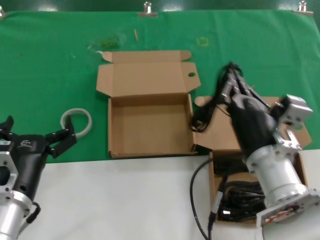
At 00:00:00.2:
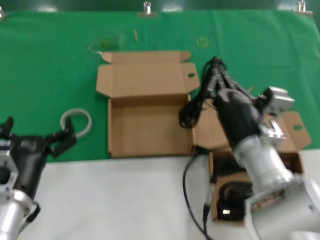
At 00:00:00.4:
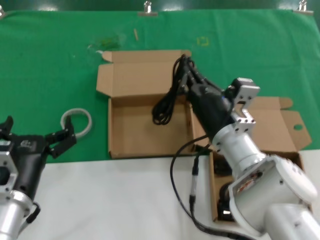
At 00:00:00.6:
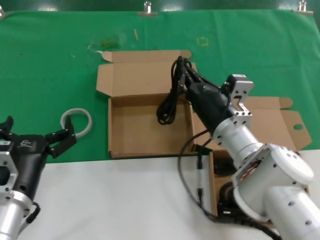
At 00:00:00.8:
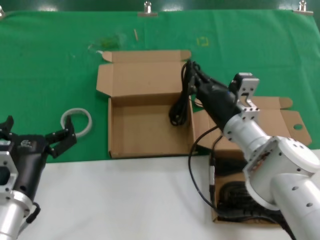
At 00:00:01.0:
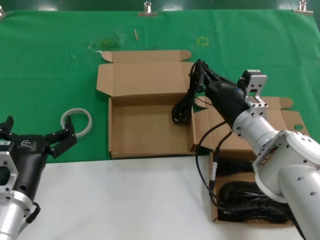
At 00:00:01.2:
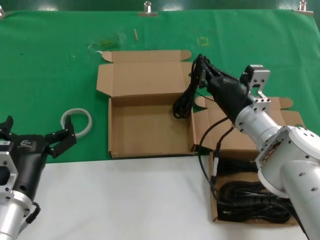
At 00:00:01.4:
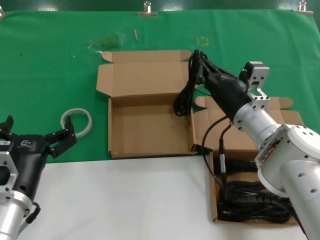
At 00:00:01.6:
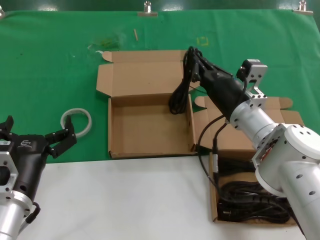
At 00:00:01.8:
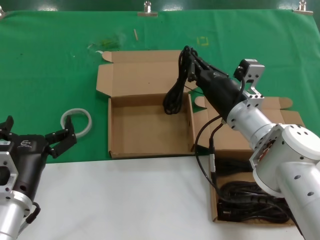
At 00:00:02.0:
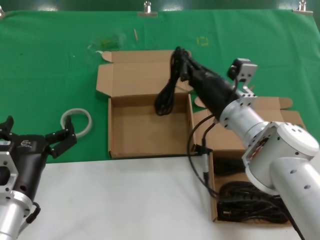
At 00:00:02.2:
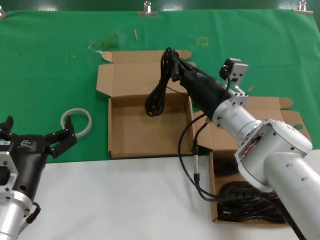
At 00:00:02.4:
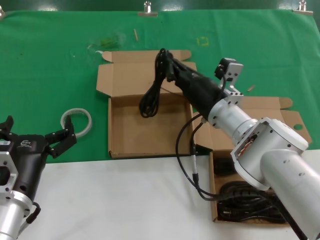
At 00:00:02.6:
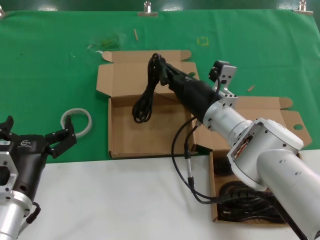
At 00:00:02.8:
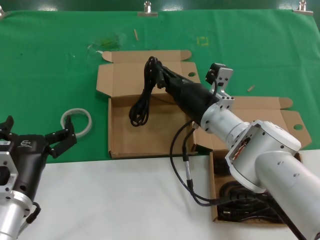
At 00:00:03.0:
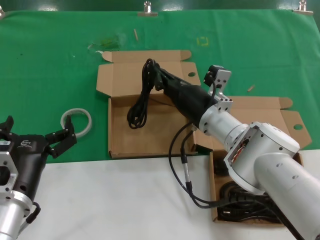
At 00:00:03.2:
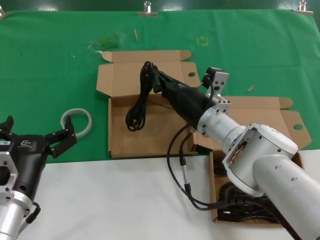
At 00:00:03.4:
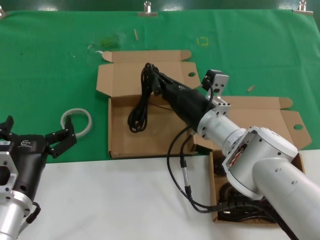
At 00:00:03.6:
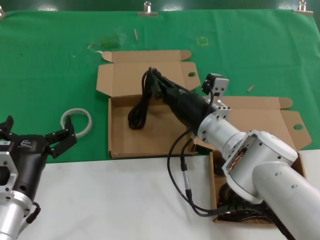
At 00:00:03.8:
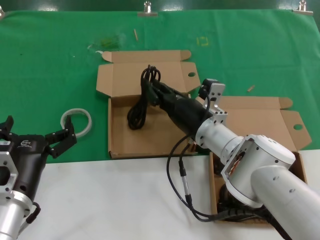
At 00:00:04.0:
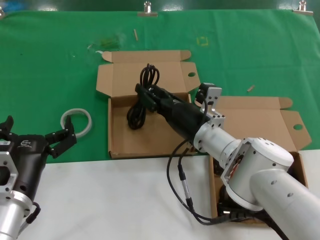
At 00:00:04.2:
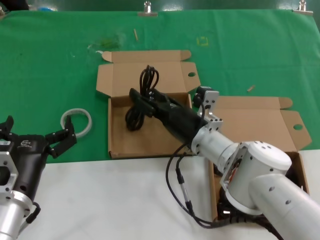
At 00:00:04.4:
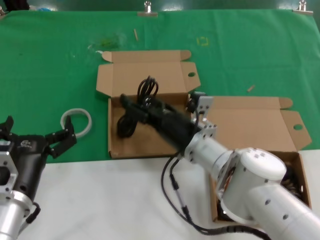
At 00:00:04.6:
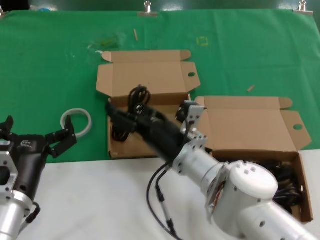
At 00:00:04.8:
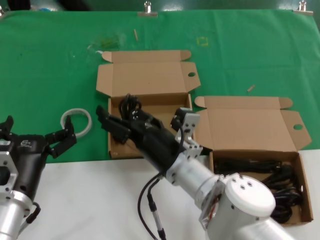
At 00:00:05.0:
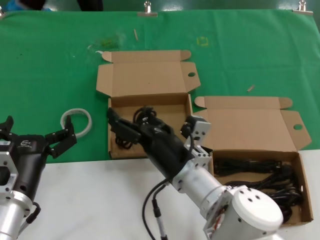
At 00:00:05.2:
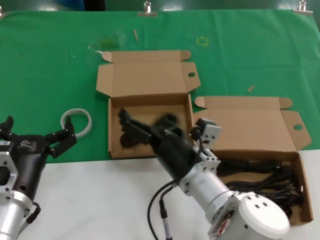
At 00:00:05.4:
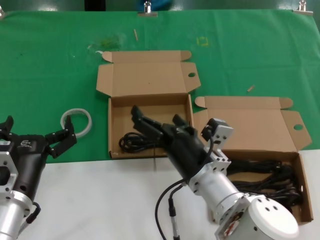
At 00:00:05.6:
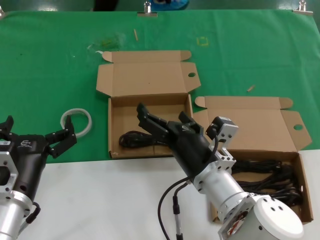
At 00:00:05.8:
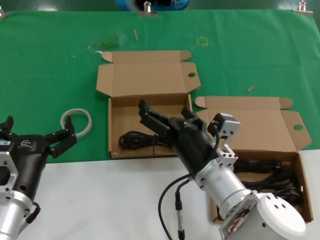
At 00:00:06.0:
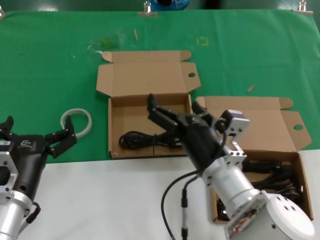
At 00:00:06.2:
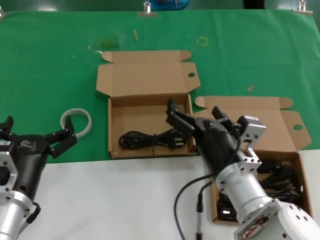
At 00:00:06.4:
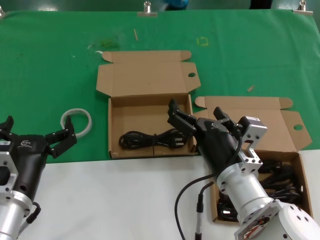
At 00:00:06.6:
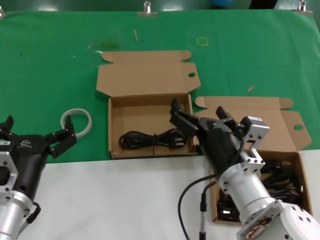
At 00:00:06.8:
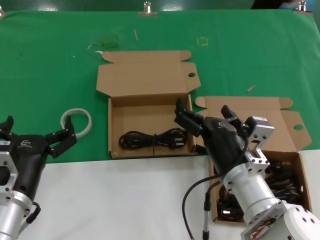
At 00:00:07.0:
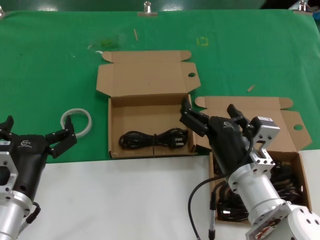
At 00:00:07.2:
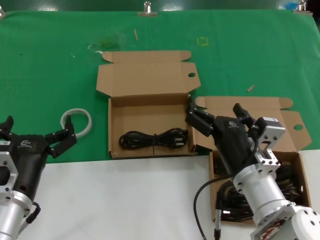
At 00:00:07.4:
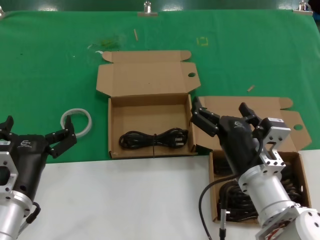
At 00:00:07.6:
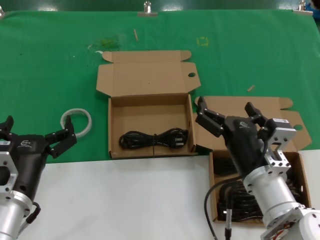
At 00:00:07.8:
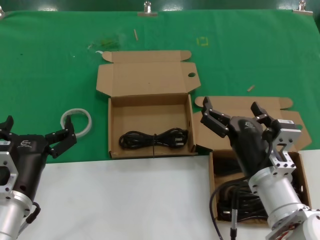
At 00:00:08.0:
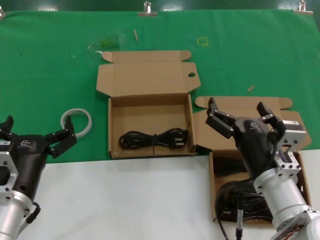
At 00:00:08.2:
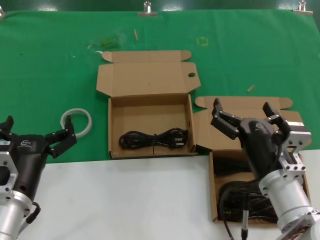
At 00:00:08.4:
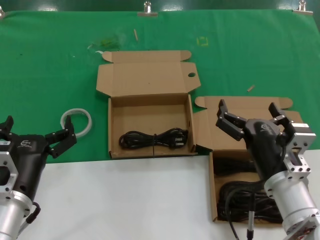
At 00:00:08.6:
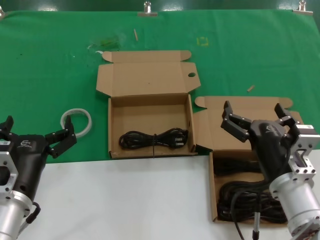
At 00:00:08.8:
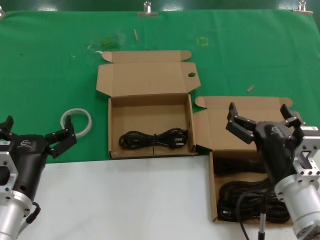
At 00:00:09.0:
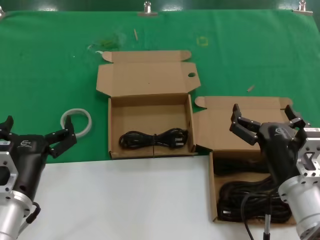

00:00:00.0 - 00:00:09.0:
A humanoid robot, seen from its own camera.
Task of the whole recording: take the parts from the box containing them and put them into an empty box.
Step, 00:00:00.0 - 00:00:05.2: Place the data cable in the another box.
00:00:00.0 - 00:00:01.6: The right hand moves forward, roughly 15 cm.
00:00:01.6 - 00:00:03.0: The right hand heads to the left, covering about 5 cm.
00:00:03.0 - 00:00:04.4: The right hand shifts by approximately 5 cm.
00:00:04.4 - 00:00:06.0: The right hand shifts about 10 cm backward.
00:00:06.0 - 00:00:07.6: The right hand is displaced to the right by some 5 cm.
00:00:07.6 - 00:00:09.0: The right hand is displaced to the right by some 5 cm.
